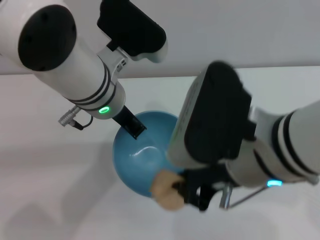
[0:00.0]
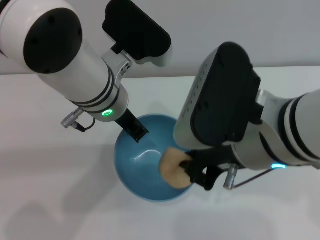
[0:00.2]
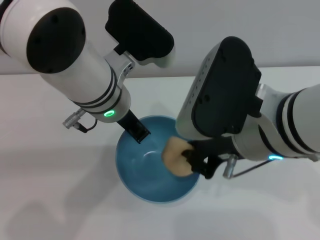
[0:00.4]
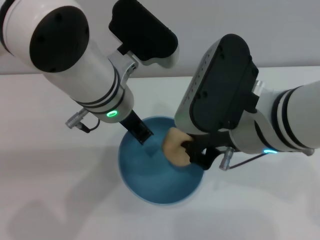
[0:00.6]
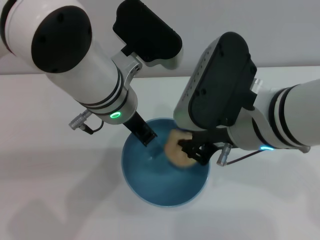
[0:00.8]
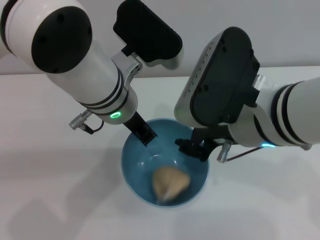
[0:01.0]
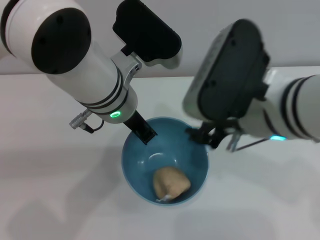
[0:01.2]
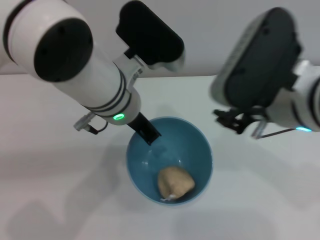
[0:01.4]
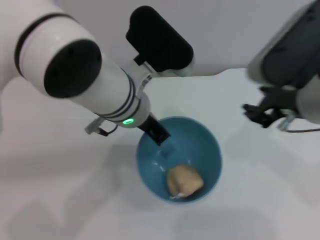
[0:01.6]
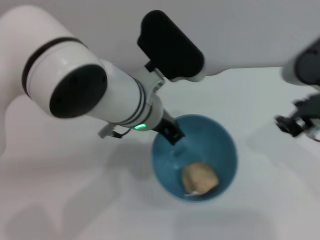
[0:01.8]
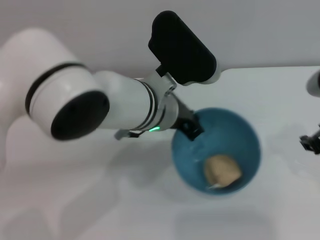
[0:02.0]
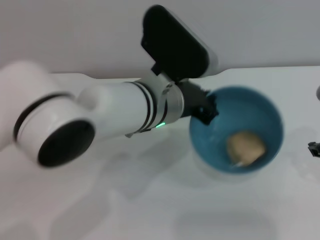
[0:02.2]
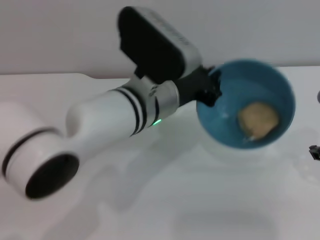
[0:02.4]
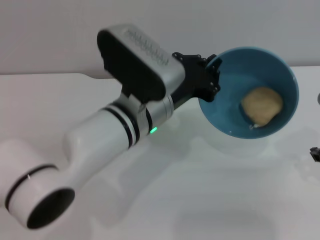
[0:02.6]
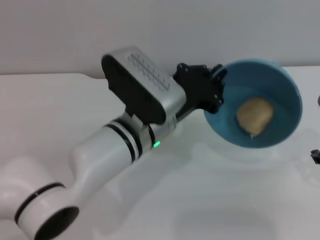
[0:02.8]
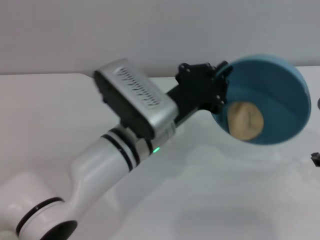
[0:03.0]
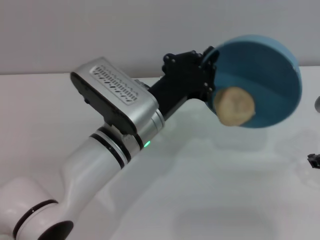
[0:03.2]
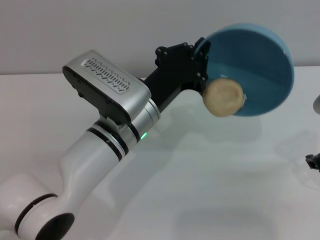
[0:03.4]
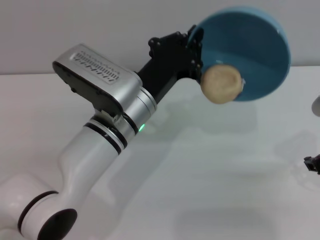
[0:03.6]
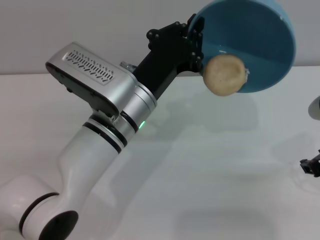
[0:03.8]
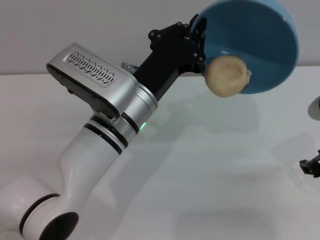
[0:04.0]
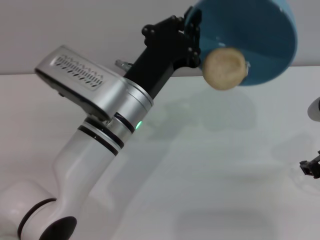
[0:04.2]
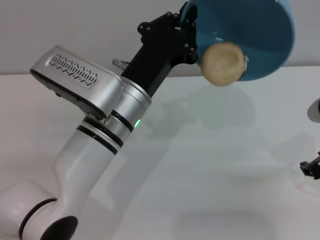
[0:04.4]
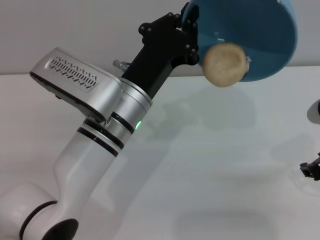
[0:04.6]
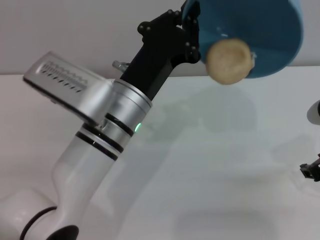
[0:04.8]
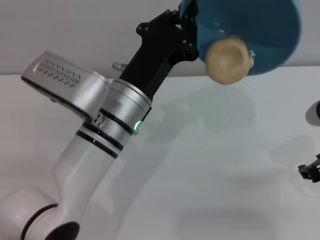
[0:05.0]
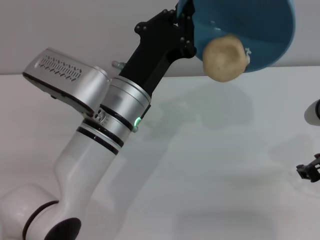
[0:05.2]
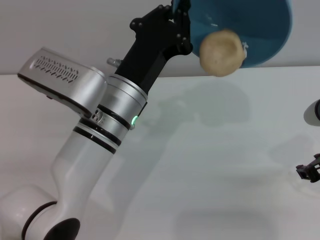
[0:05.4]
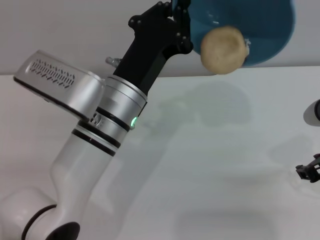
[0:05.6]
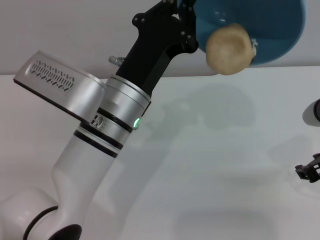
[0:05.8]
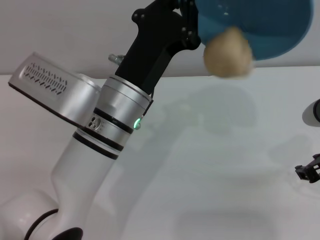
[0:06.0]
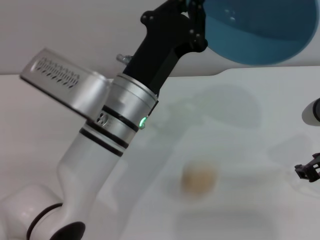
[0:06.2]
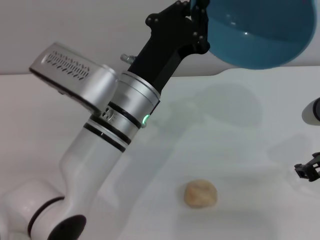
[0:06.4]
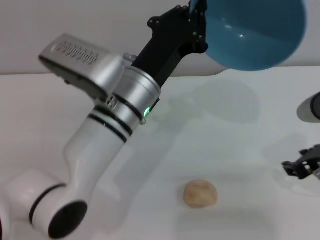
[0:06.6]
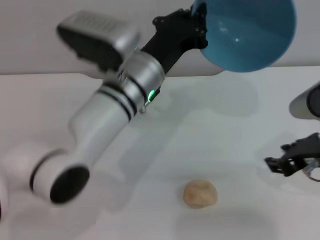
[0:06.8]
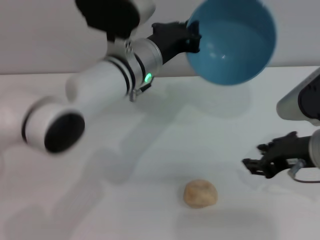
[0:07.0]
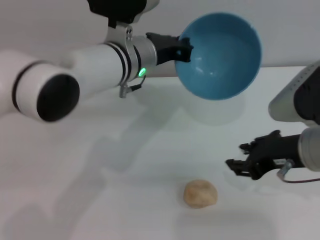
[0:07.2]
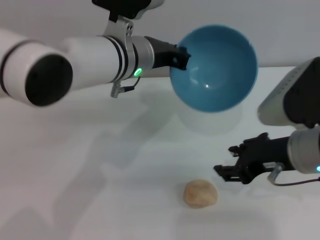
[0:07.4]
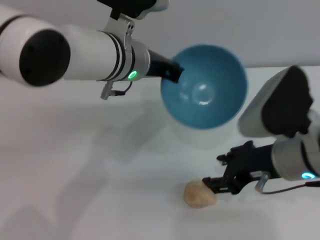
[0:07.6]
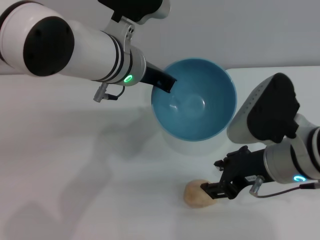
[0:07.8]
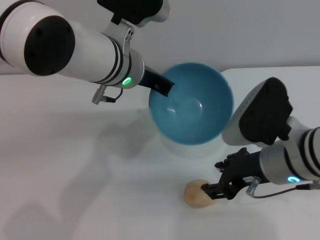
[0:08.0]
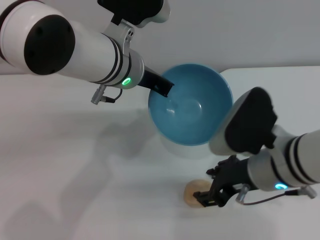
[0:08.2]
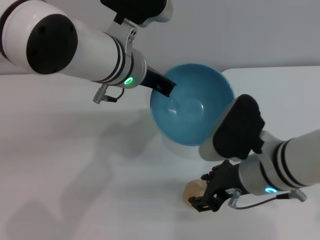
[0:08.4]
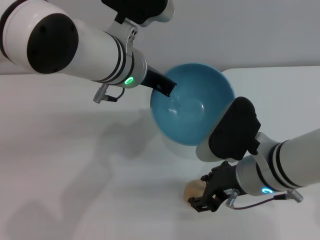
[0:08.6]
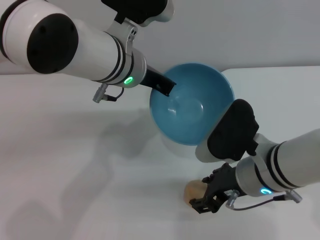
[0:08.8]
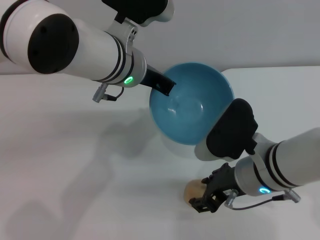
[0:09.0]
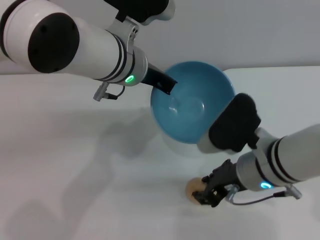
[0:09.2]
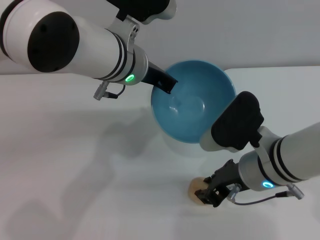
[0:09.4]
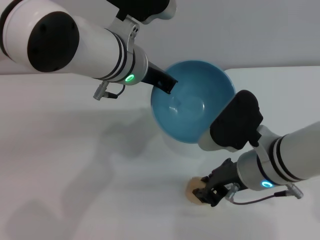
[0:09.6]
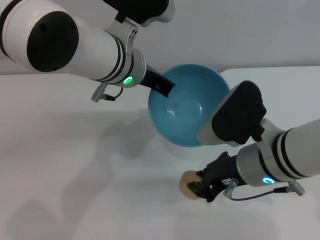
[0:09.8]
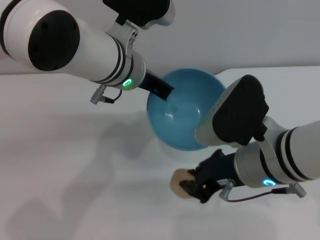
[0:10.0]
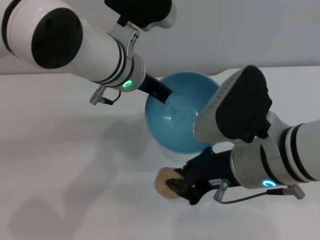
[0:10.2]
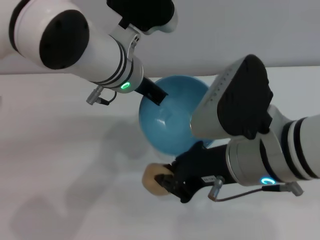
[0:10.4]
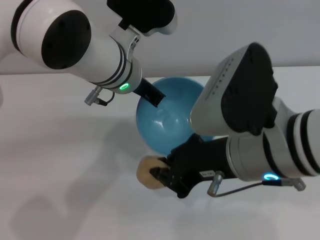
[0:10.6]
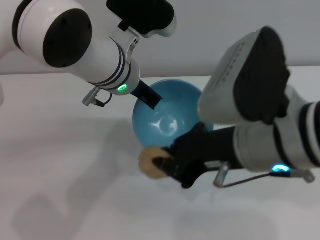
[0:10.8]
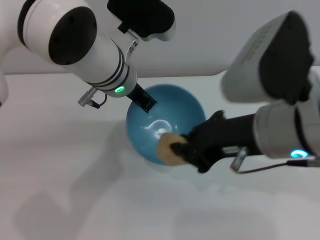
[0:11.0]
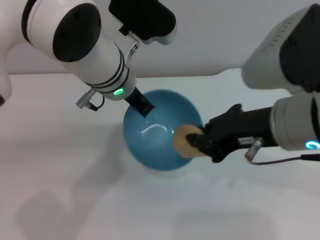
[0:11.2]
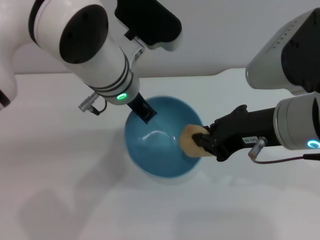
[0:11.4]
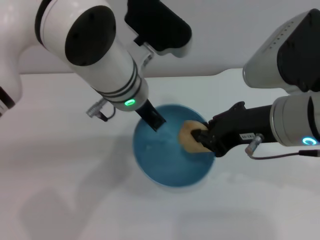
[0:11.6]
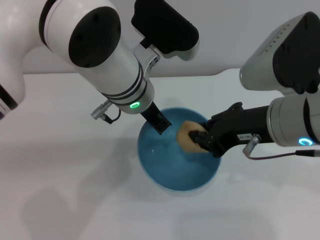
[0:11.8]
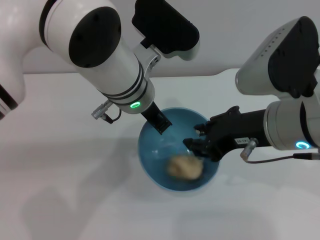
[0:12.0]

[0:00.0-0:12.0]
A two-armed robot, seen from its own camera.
Task of the whole recording: put the egg yolk pastry into the blue bowl and pour it out repeatedly.
Step, 0:00.0 to 0:01.2: Place the egg yolk pastry into the bowl.
Step, 0:01.4 to 0:06.6: Pour the egg yolk pastry out of bowl.
Step, 0:06.8 to 0:10.4: Pick up the egg yolk pastry with the right gripper.
0:00.0 to 0:01.6: The right gripper goes roughly 10 cm to the right, and opens up.
0:01.6 to 0:03.0: The left gripper travels downward by roughly 5 cm; the right gripper is displaced to the right and downward by approximately 10 cm.
0:04.4 to 0:06.0: The grippers make only small movements.
0:06.0 to 0:07.6: The right gripper moves to the left, approximately 10 cm, while the left gripper goes some 10 cm forward and upward.
0:07.6 to 0:09.0: The right gripper travels downward by approximately 5 cm.
0:09.0 to 0:10.4: The right gripper goes approximately 10 cm upward, and closes.
0:10.4 to 0:12.0: The right gripper ends up about 5 cm from where it was.

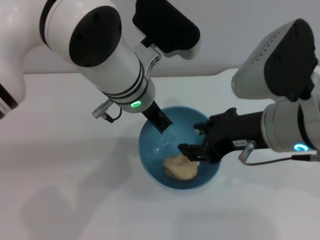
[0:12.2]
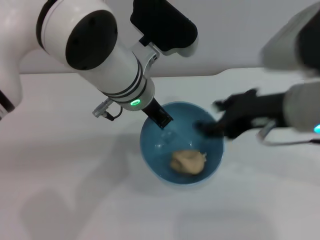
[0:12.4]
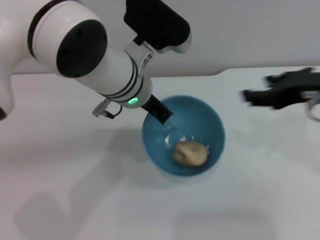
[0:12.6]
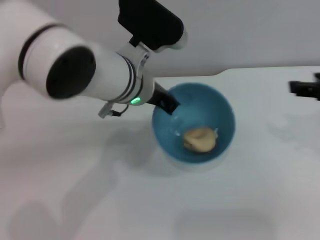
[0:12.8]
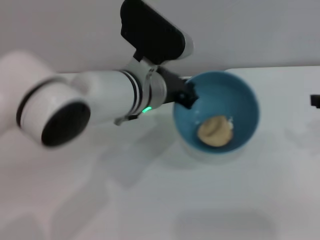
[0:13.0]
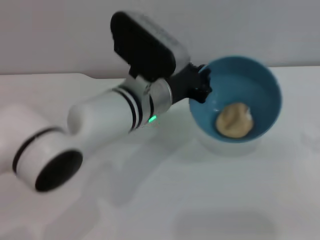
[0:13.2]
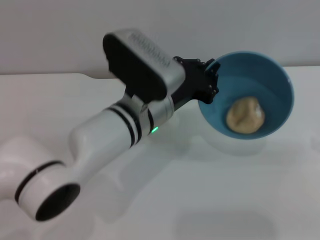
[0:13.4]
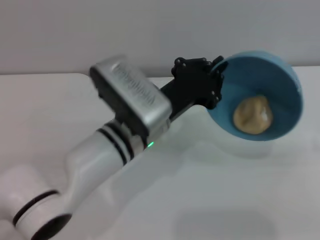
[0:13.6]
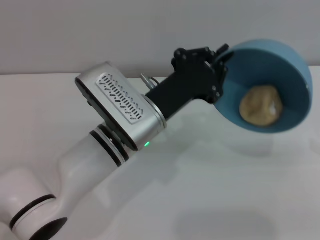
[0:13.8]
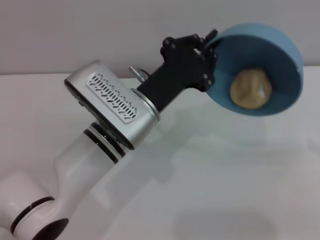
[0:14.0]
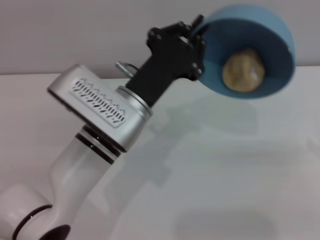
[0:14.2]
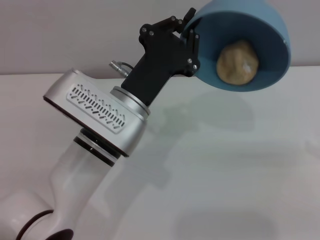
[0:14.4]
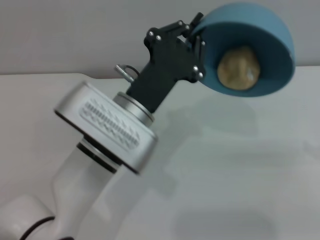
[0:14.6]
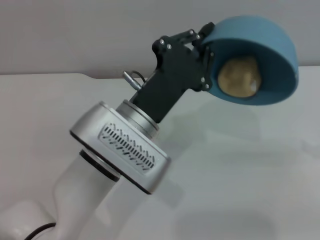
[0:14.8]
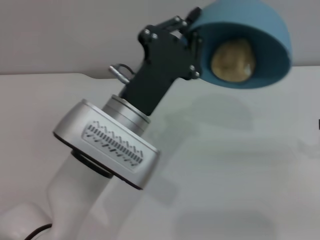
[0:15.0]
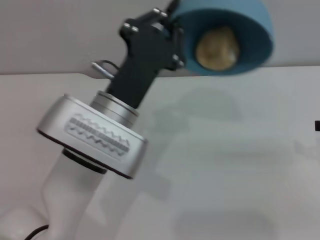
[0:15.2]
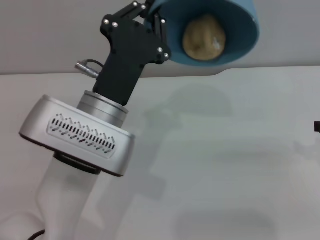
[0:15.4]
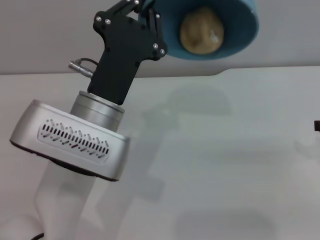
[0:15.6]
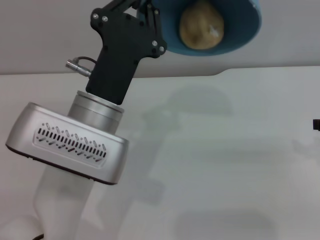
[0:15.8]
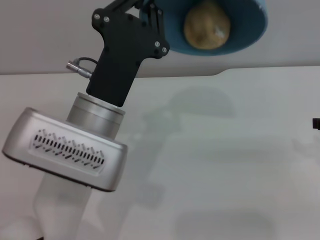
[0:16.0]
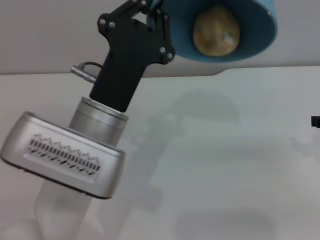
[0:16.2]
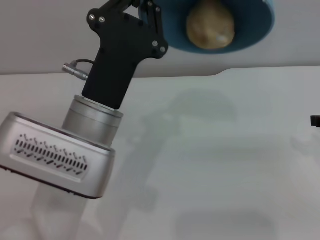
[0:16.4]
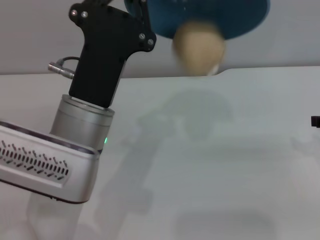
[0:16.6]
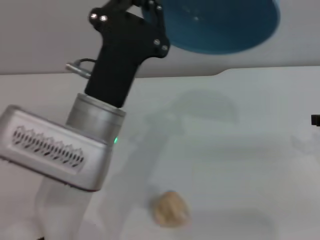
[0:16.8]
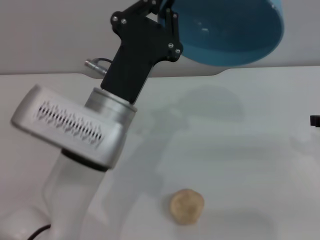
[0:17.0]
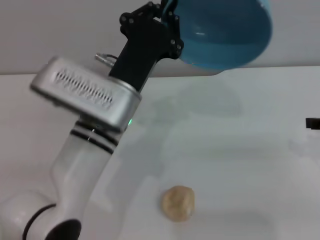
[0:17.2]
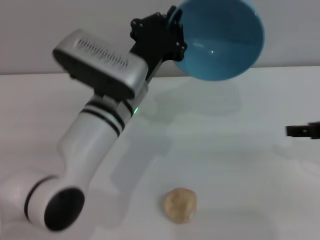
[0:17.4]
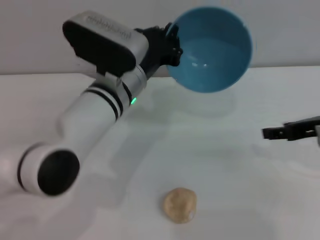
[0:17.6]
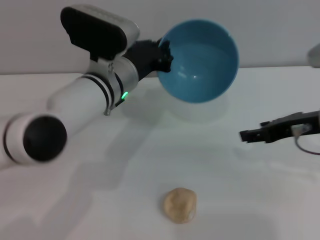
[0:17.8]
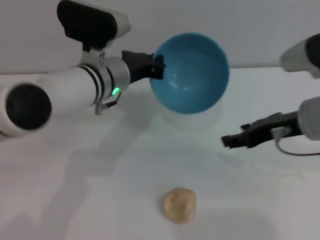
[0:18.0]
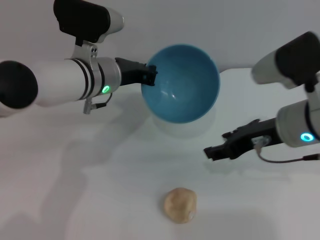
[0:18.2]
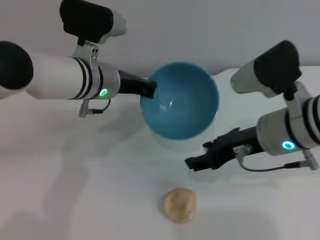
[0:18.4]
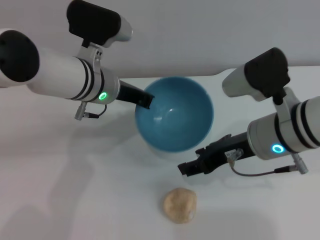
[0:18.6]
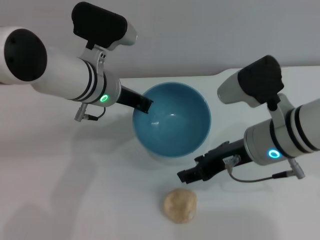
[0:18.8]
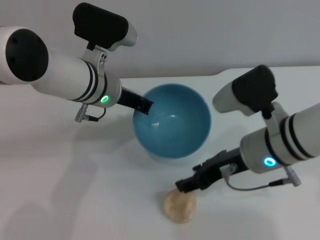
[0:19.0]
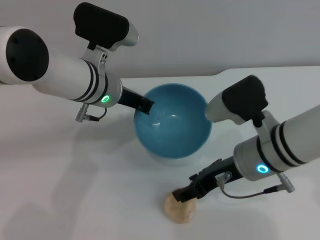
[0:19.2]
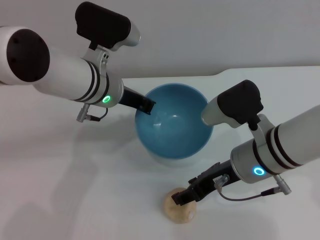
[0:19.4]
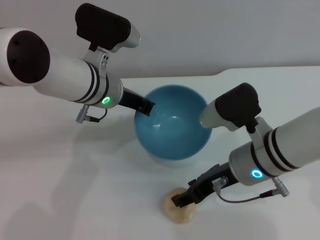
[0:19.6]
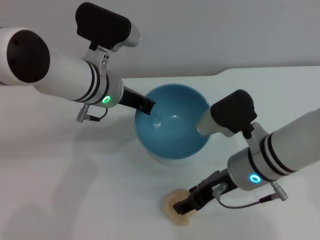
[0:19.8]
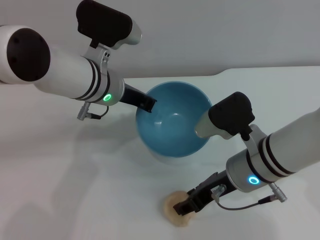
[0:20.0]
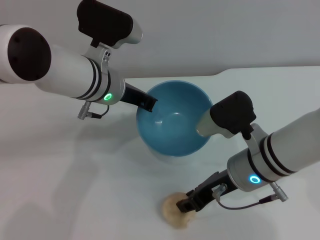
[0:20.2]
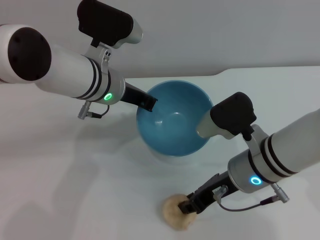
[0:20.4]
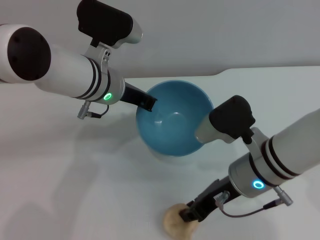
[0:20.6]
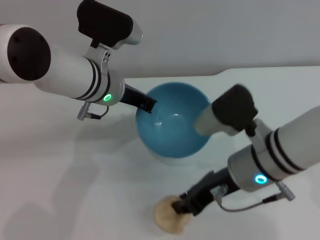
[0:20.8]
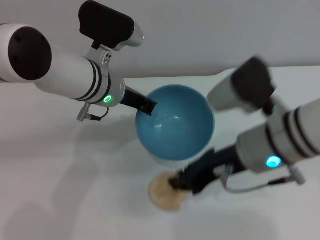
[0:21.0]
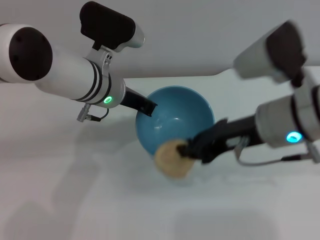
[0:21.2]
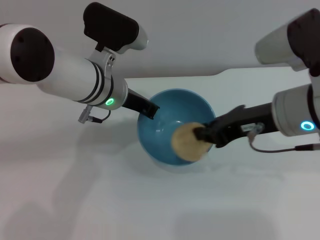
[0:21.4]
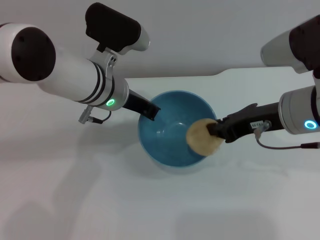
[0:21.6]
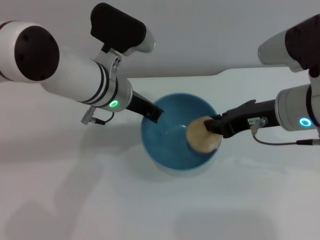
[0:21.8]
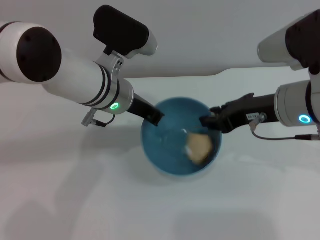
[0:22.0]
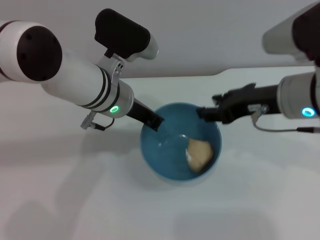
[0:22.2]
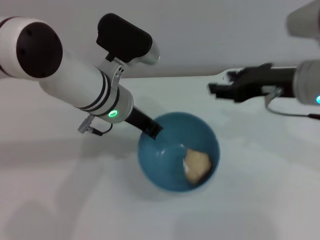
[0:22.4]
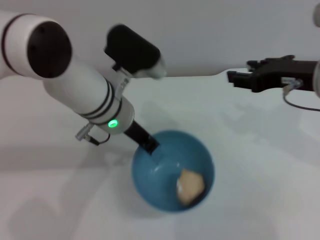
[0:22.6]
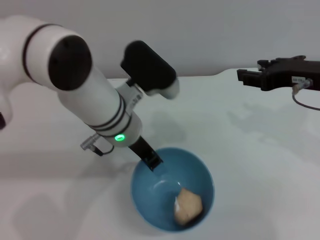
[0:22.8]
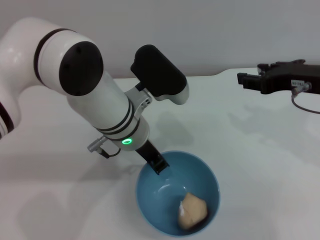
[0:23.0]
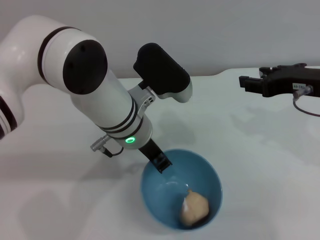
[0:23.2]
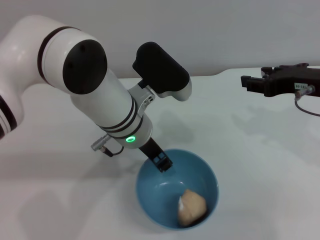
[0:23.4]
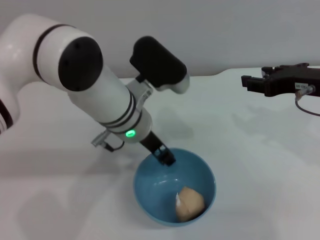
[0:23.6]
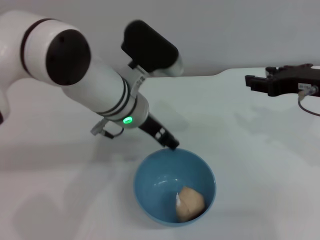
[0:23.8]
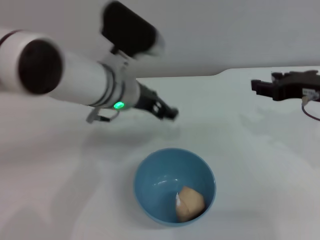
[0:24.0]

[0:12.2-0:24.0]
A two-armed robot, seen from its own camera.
Task of the whole recording: put the egg yolk pastry into the blue bowl and pour it out repeatedly.
Step, 0:12.6 to 0:17.0: Pour the egg yolk pastry out of bowl.
Step, 0:17.2 to 0:21.0: Pick up the egg yolk pastry with the right gripper.
Step, 0:21.2 to 0:22.2: Place the egg yolk pastry into the bowl.
Step, 0:22.4 to 0:23.8: Place the bowl on the table.
0:12.2 to 0:13.6: The left gripper travels downward by roughly 10 cm; the right gripper moves to the right, some 20 cm, and opens its fingers.
0:16.6 to 0:18.2: The left gripper moves forward, some 15 cm; the right gripper travels to the left by approximately 15 cm.
0:18.2 to 0:19.6: The right gripper shifts about 5 cm downward.
0:19.6 to 0:21.0: The right gripper is displaced upward by about 5 cm, and closes up.
0:21.0 to 0:22.6: The right gripper goes approximately 10 cm to the right, and opens its fingers.
0:22.6 to 0:24.0: The left gripper opens its fingers.
